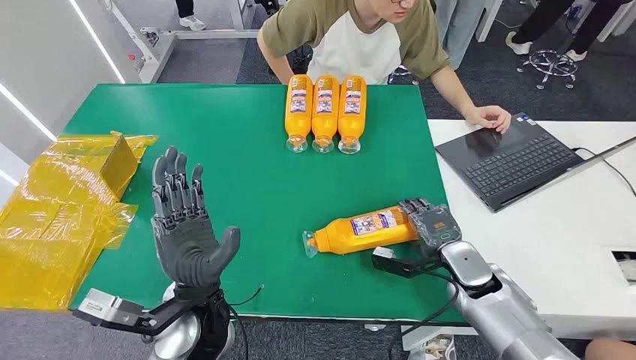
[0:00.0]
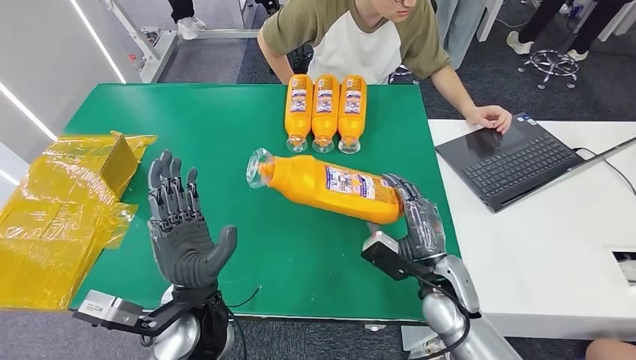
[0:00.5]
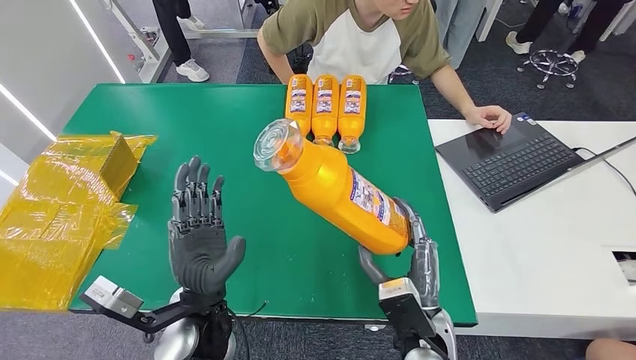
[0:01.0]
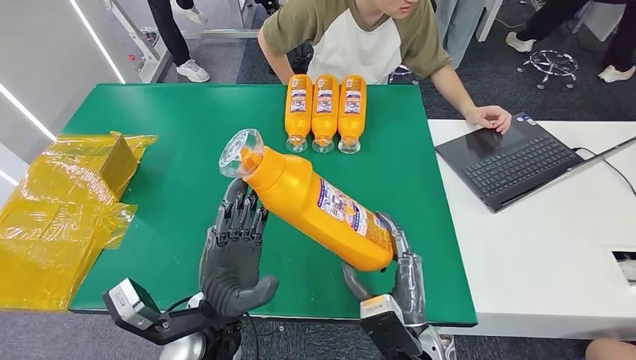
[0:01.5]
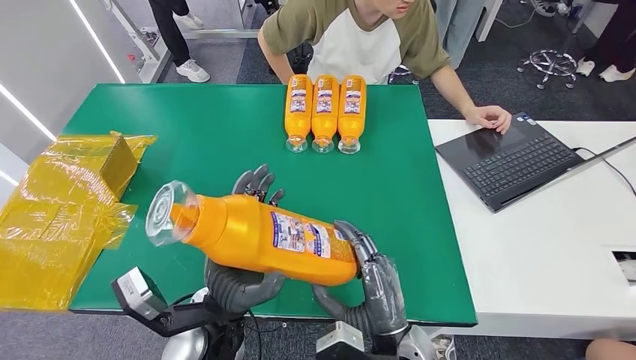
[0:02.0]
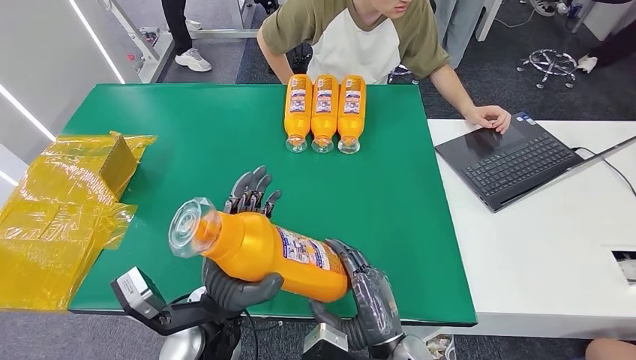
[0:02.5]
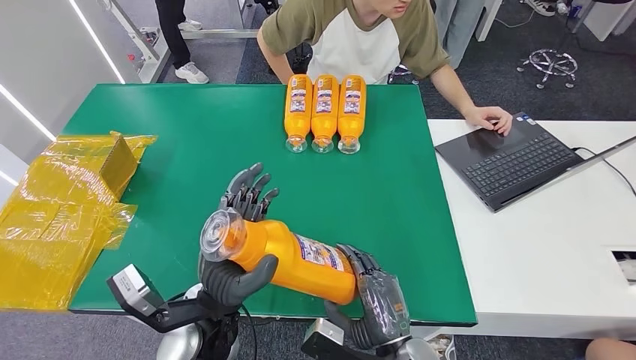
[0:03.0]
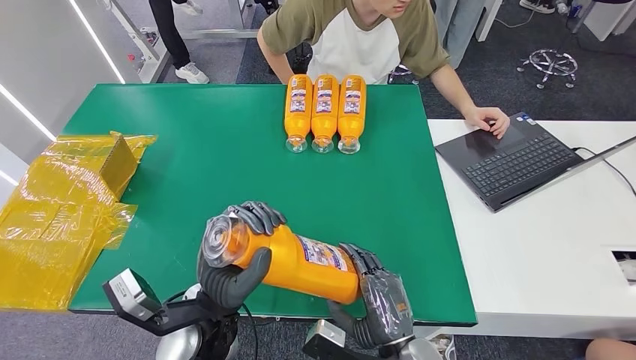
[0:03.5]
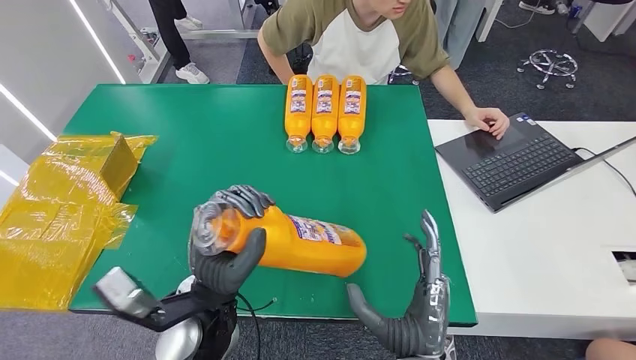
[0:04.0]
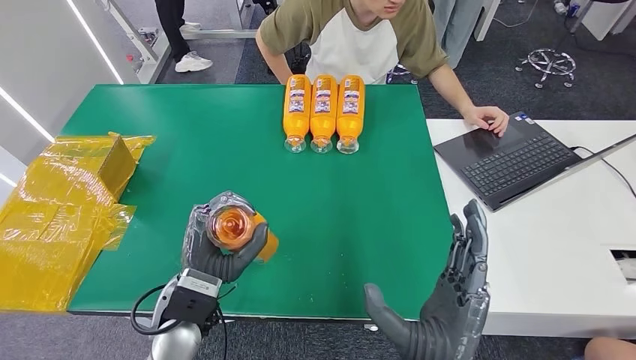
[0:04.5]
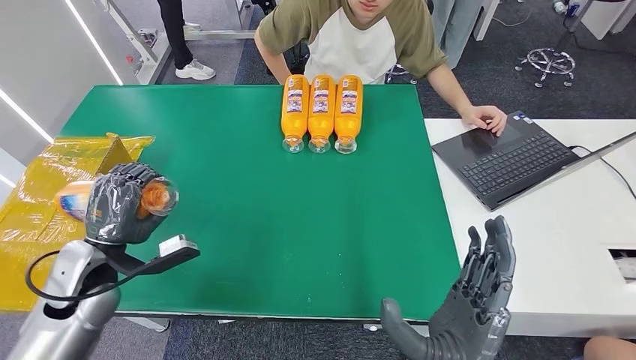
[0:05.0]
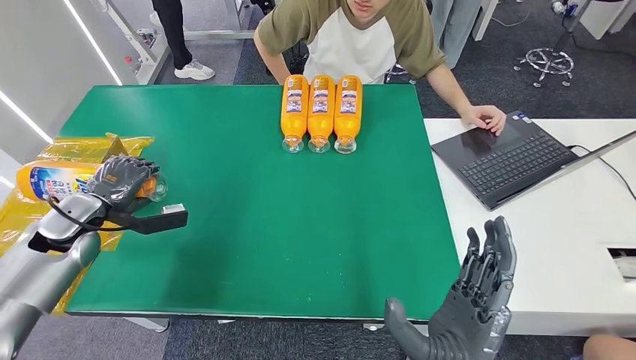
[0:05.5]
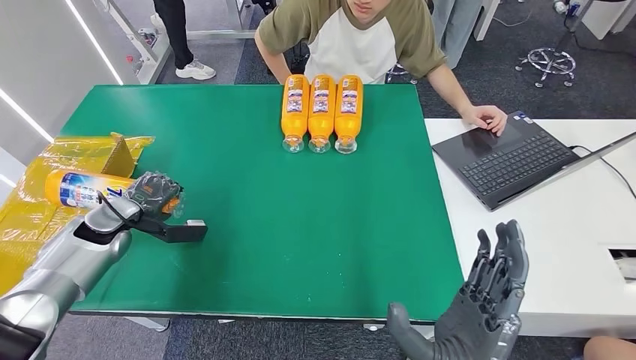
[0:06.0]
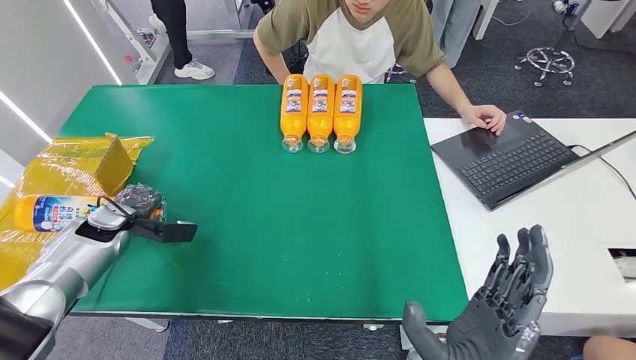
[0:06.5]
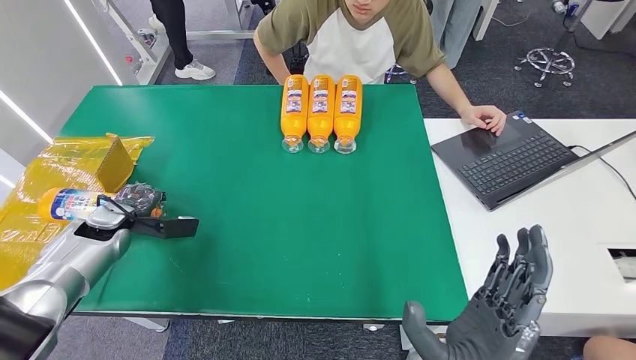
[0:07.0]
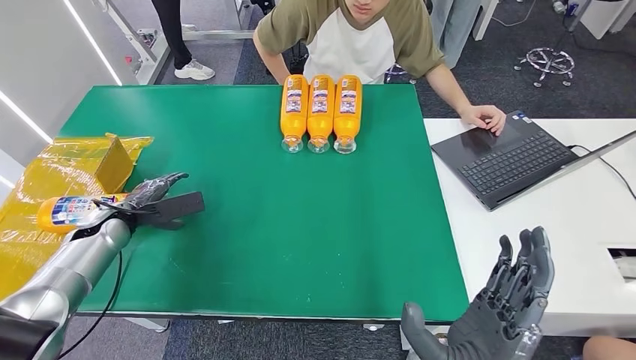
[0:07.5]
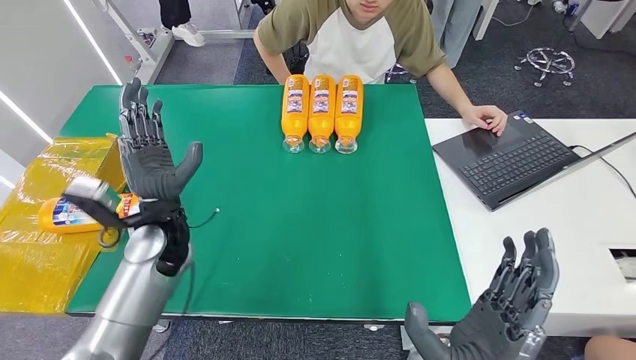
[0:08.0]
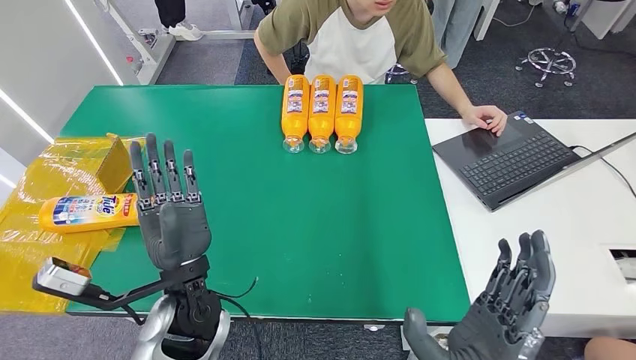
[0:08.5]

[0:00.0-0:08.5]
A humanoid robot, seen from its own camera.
Step, 0:00.0 to 0:02.5: Pick up the bottle from the table.
Step, 0:03.0 to 0:08.5: Turn the bottle to the front side.
0:06.5 to 0:08.5: The left hand is displaced to the right and backward by roughly 30 cm.
